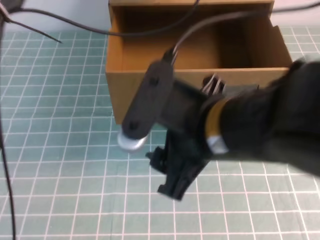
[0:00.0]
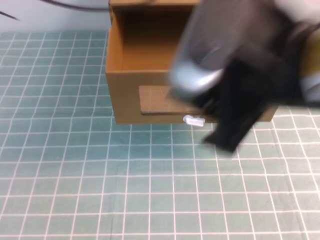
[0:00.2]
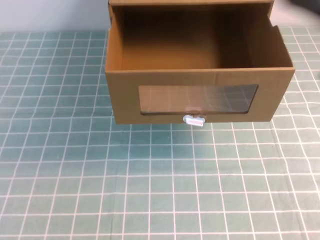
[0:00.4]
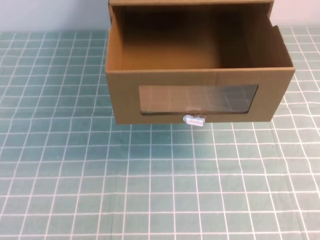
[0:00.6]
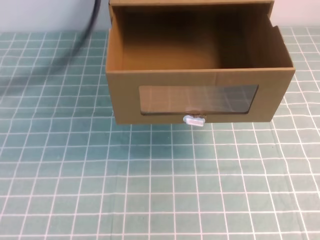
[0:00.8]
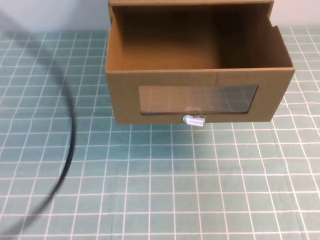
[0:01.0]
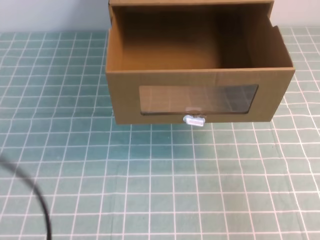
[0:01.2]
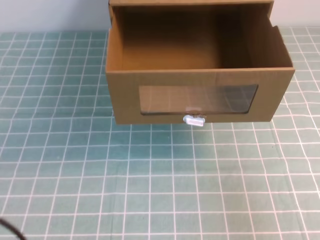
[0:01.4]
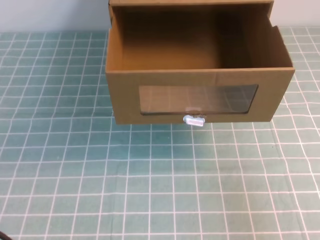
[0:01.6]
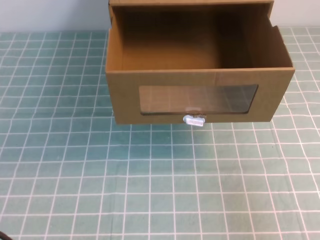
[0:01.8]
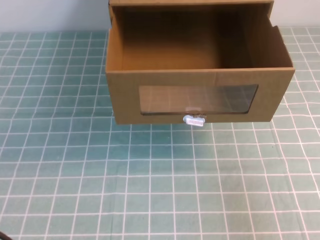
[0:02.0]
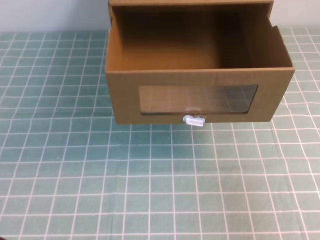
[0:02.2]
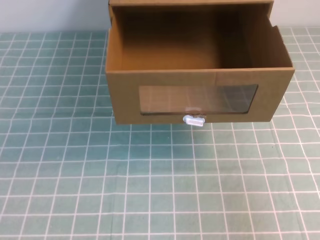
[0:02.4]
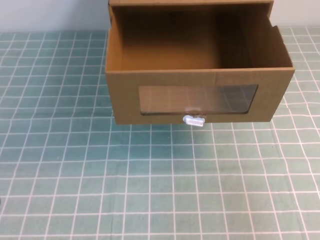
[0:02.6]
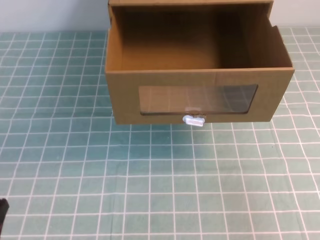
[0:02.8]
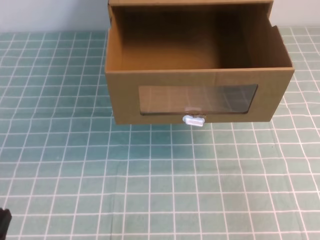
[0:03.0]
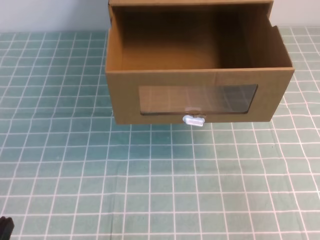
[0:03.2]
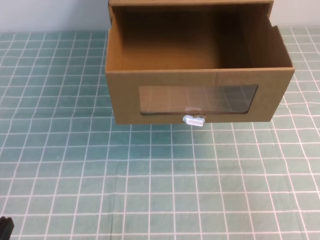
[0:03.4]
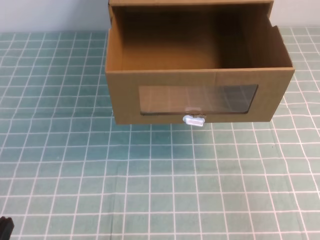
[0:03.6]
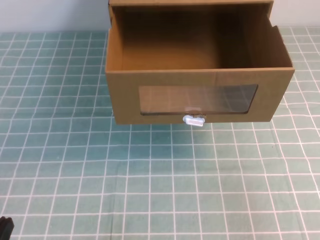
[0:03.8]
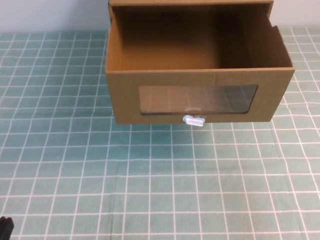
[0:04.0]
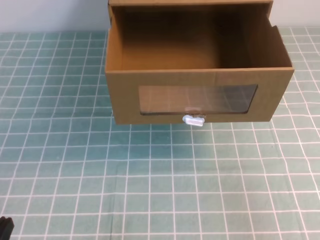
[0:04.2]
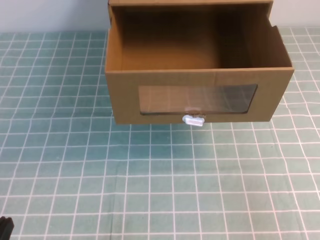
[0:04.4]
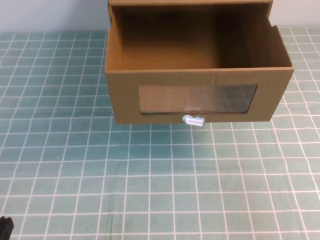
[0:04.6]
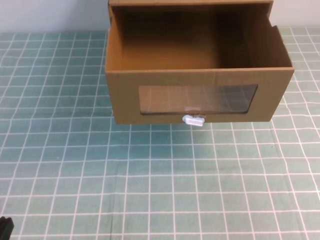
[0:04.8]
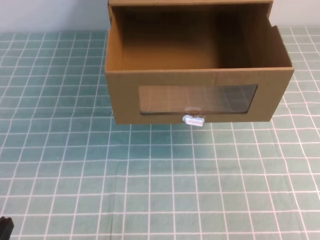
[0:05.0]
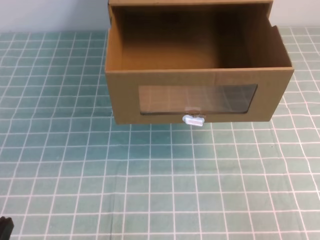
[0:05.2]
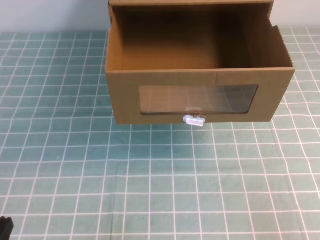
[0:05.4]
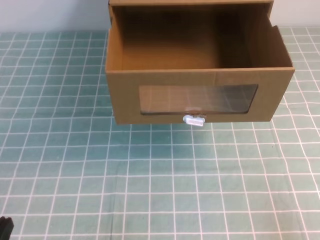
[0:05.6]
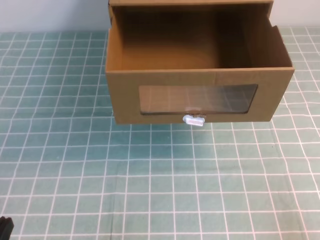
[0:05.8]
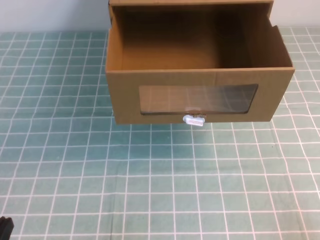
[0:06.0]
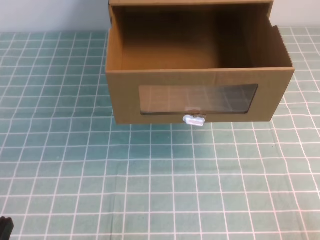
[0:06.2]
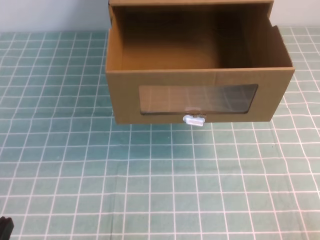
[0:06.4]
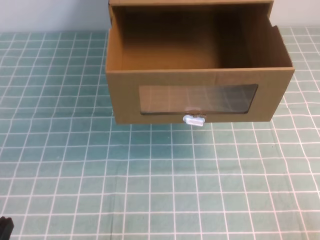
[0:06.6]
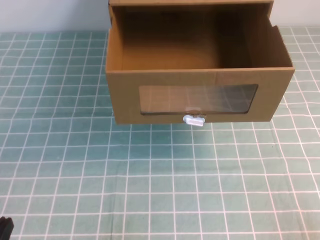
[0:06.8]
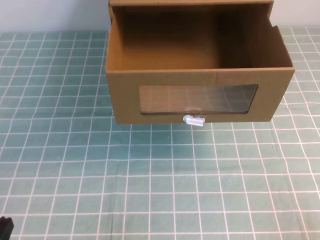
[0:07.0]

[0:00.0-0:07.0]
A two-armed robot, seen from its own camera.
Task of the whole recording: open the shoebox on the cyan tablecloth.
Step, 0:00.0 to 0:07.0: Open the shoe box.
0:00.0 to 0:01.4: The right gripper travels to the right by approximately 25 cm, and closes. Meanwhile the left gripper travels backward and to the left by approximately 40 cm.
